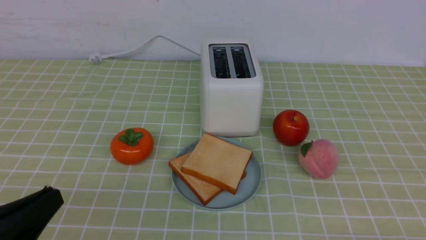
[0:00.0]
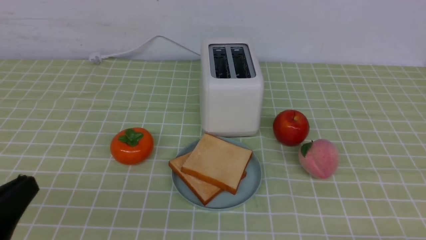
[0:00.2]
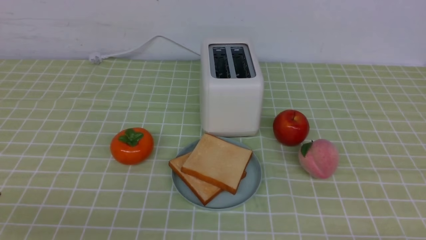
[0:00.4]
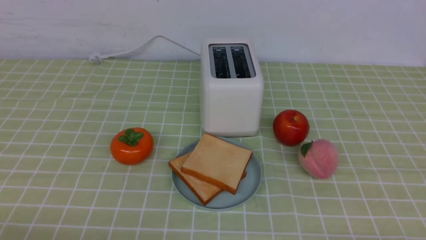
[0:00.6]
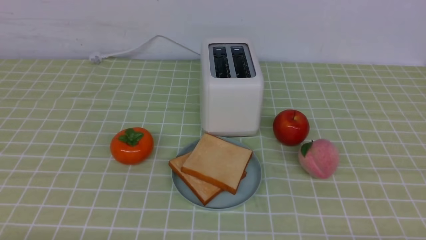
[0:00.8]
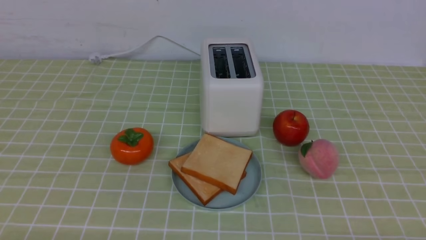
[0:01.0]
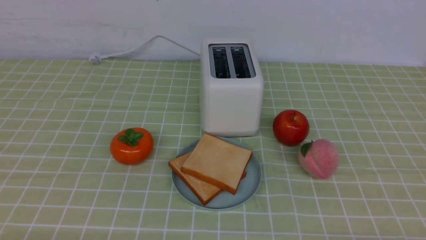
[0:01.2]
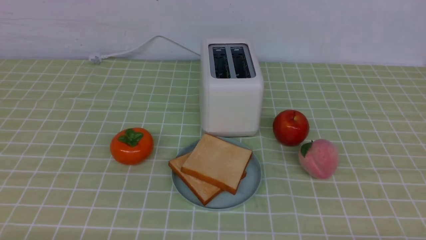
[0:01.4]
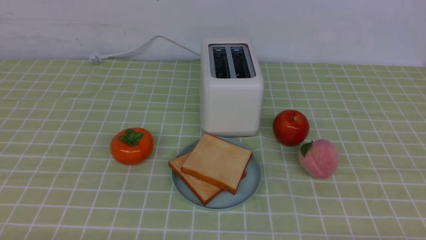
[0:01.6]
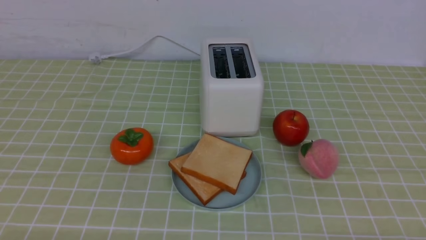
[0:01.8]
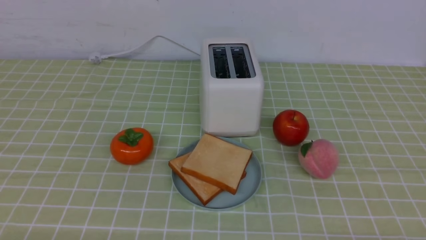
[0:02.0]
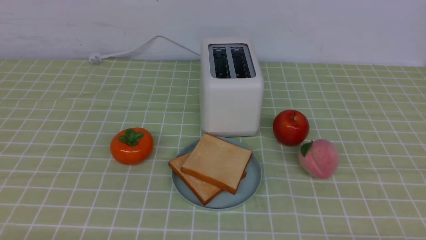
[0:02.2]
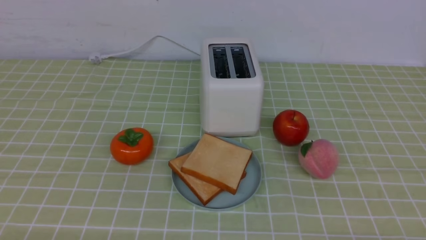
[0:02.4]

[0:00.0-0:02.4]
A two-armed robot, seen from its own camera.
Task of the whole recording: take toasted bread from bread machine on green coffee tablecloth place on plate.
0:00.0 to 0:01.2: The left gripper is displaced downward by about 10 cm.
0:01.2 to 0:02.4: The two grippers keep their place.
